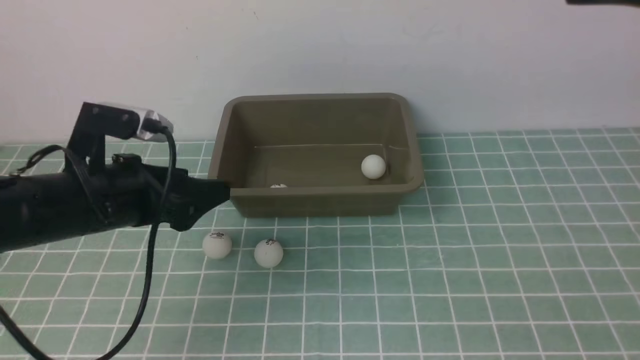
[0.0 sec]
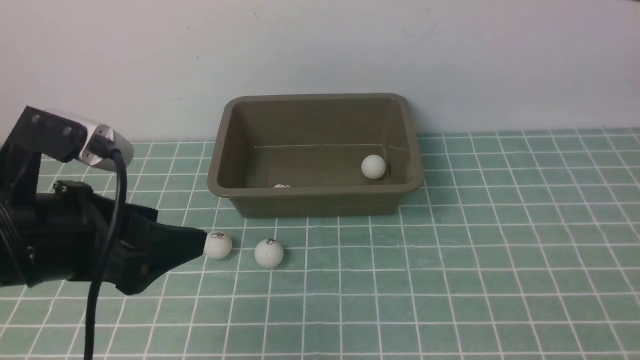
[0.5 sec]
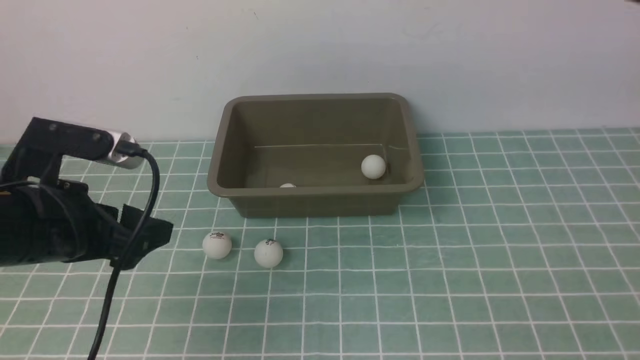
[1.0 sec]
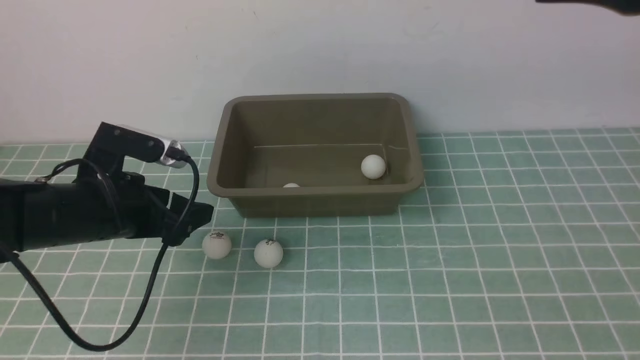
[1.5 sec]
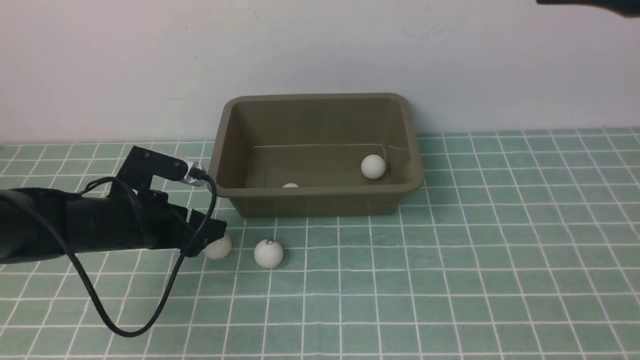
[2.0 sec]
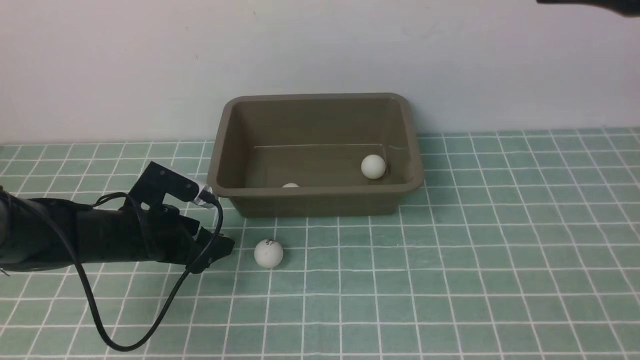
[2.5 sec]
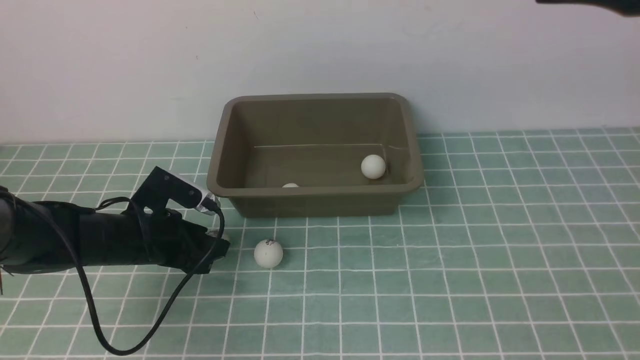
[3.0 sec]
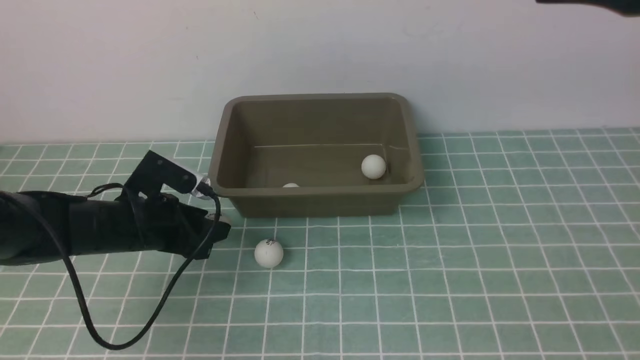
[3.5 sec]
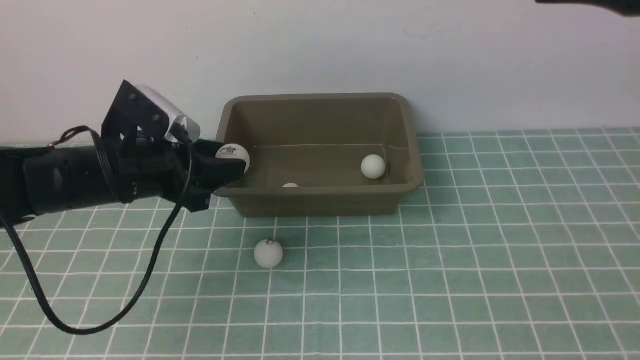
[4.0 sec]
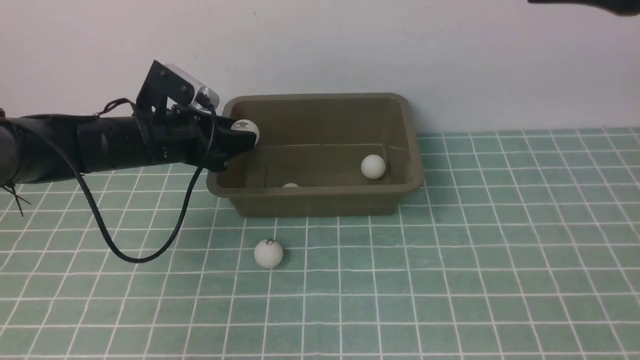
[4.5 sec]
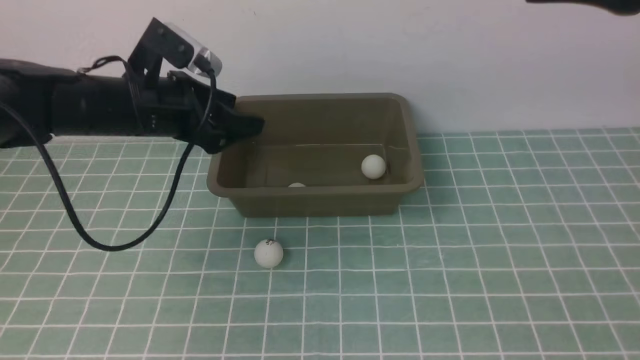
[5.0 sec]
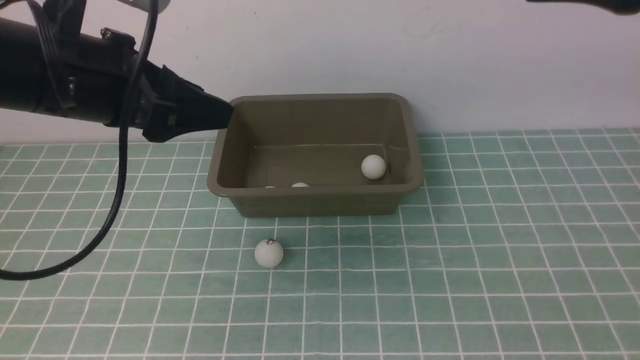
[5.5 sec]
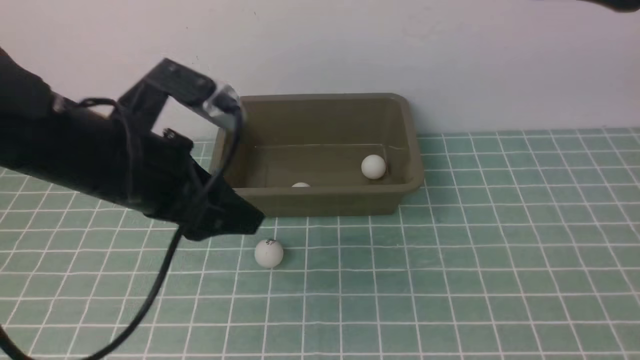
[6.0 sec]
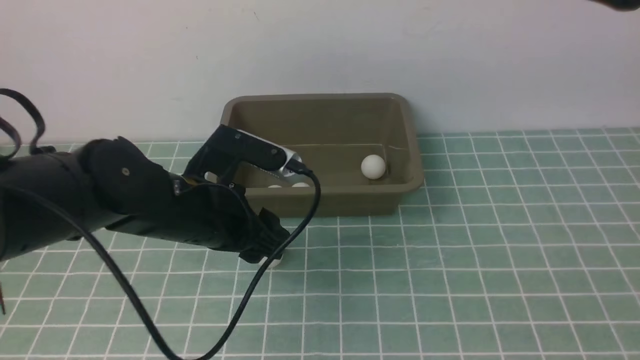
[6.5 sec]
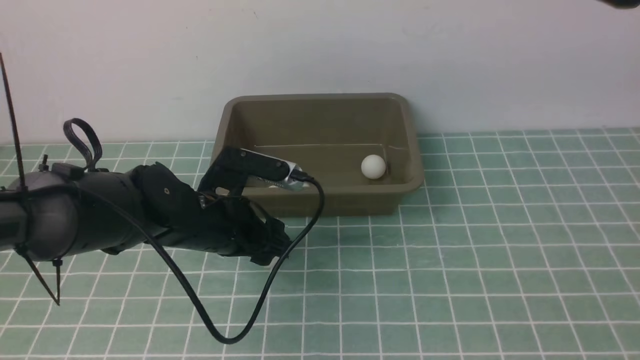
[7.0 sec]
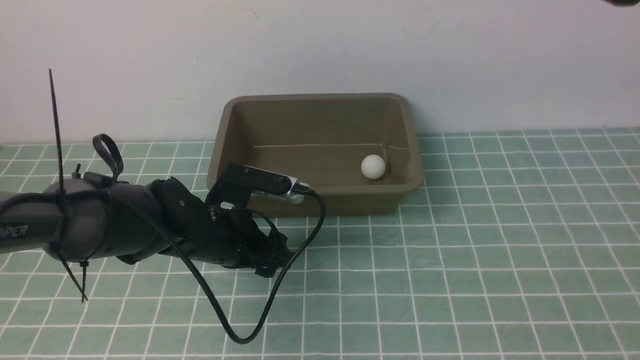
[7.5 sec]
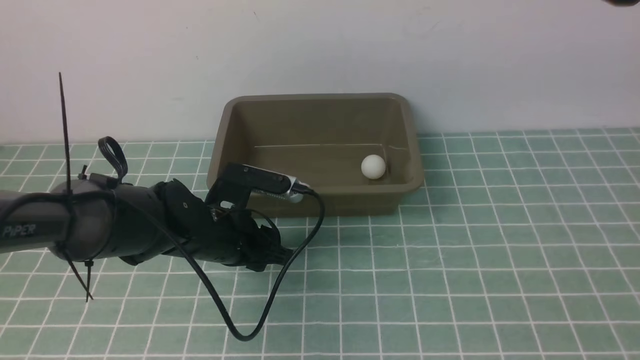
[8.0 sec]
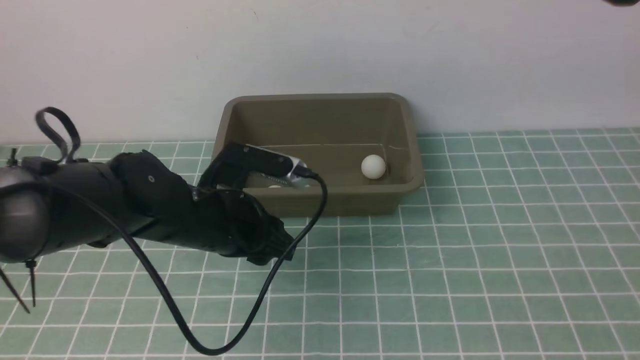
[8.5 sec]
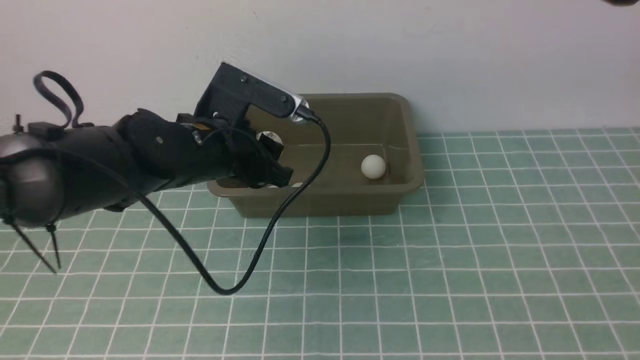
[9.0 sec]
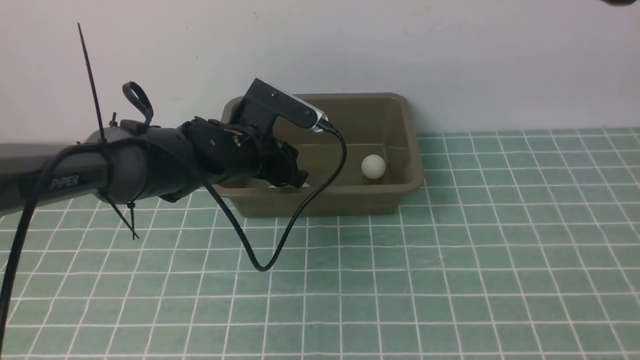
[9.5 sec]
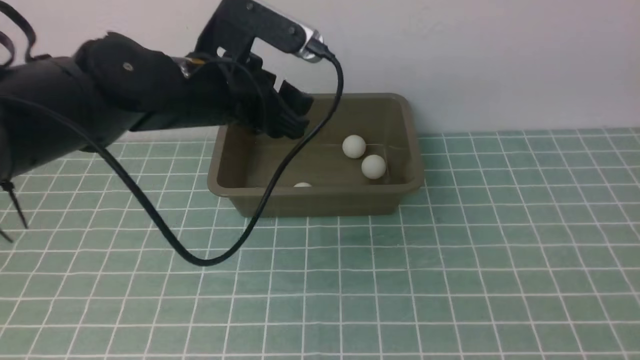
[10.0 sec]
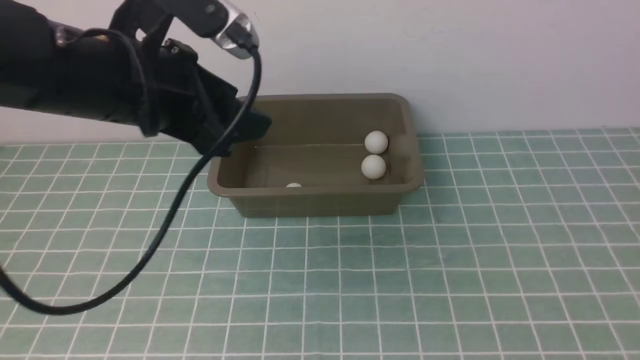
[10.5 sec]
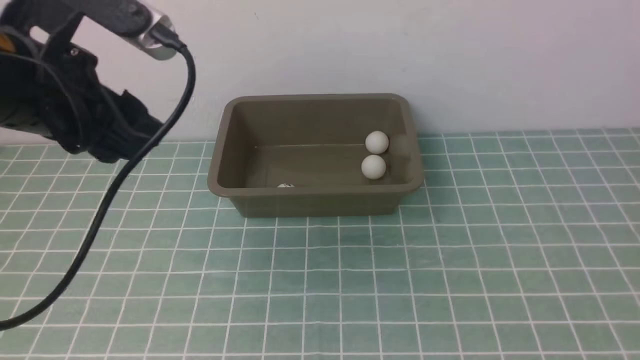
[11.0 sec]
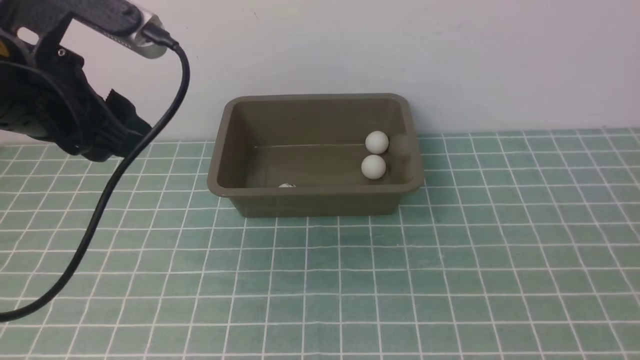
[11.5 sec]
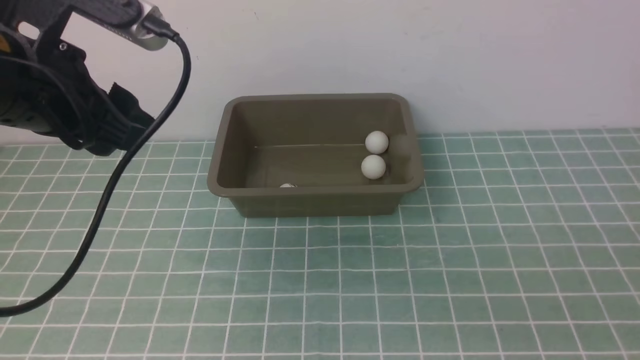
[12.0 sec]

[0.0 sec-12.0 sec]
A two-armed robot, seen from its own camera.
Step, 0.0 sec to 3.5 sec: use the left arm to clamp the table tennis ball closest to it.
Step, 4.0 sec to 4.5 sec: use the left arm to put the table tennis ball into the box.
Step, 5.0 sec to 8.5 sec: use the left arm to clamp the table tennis ball closest to it.
Step, 9.0 sec to 9.5 sec: use the left arm to put the table tennis ball into the box.
0.0 sec to 2.0 sec: The left gripper moves downward and forward, some 20 cm.
2.0 sec to 4.0 sec: The left gripper goes about 10 cm upward, and closes up.
4.0 sec to 6.0 sec: The left gripper moves backward and upward, roughly 10 cm.
6.0 sec to 8.0 sec: The left gripper shifts about 15 cm downward, and opens and closes again.
8.0 sec to 10.0 sec: The left gripper is displaced upward by approximately 20 cm, and opens its fingers.
10.0 sec to 12.0 sec: The left gripper moves to the left, backward and upward, some 15 cm. Meanwhile the right gripper goes about 30 cm downward and backward.

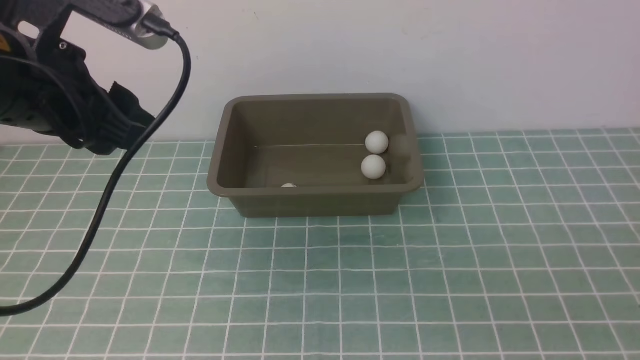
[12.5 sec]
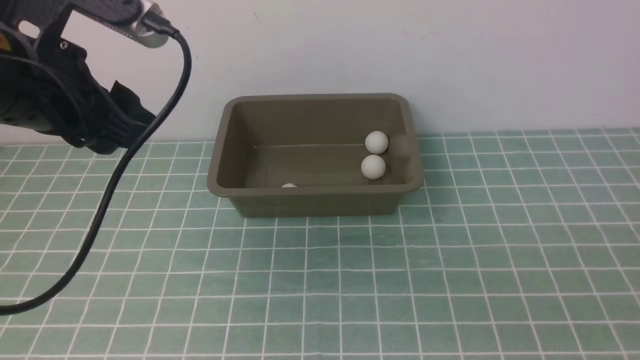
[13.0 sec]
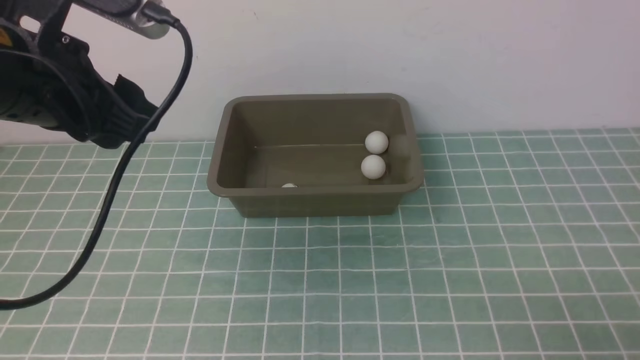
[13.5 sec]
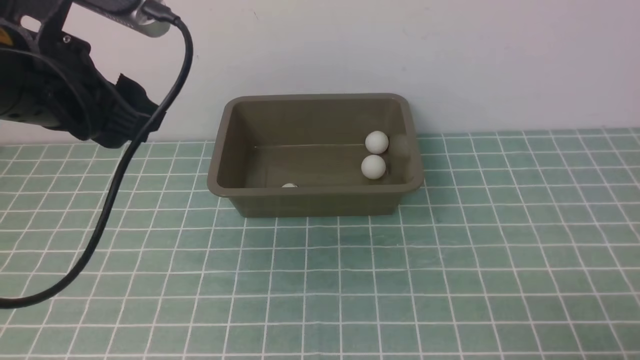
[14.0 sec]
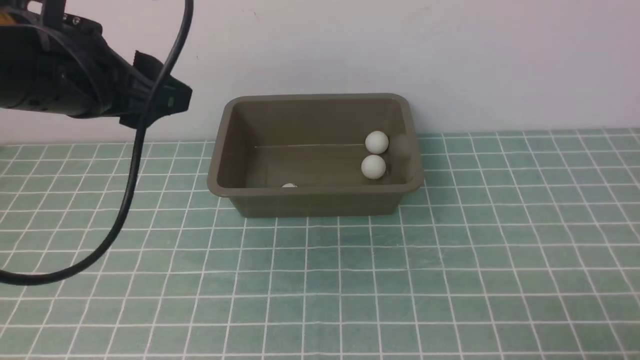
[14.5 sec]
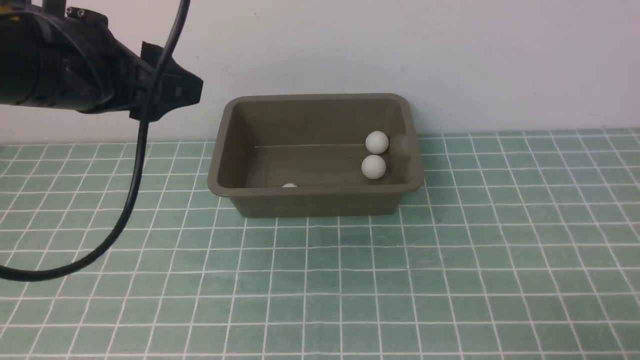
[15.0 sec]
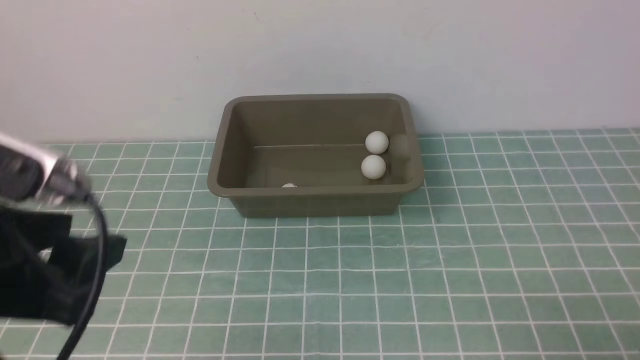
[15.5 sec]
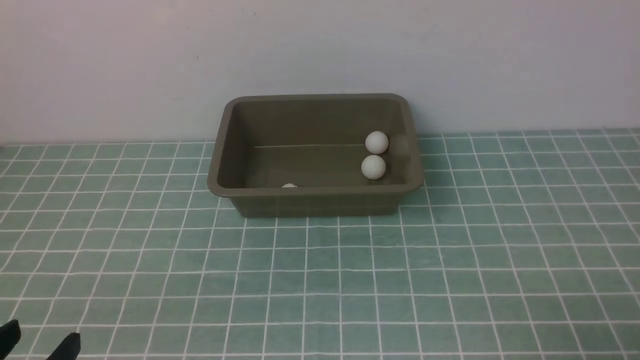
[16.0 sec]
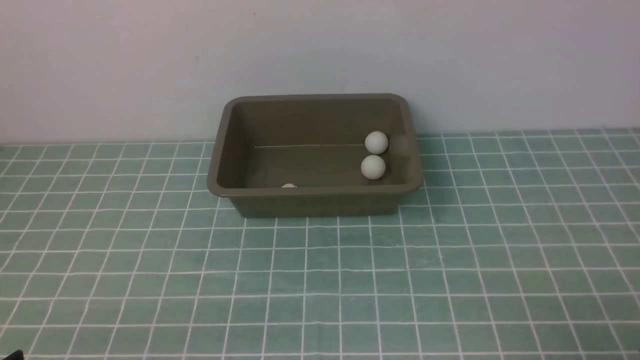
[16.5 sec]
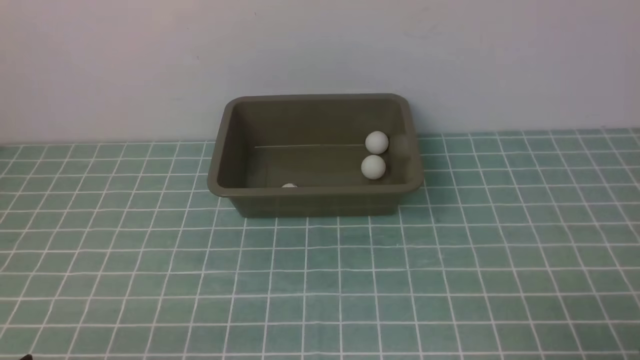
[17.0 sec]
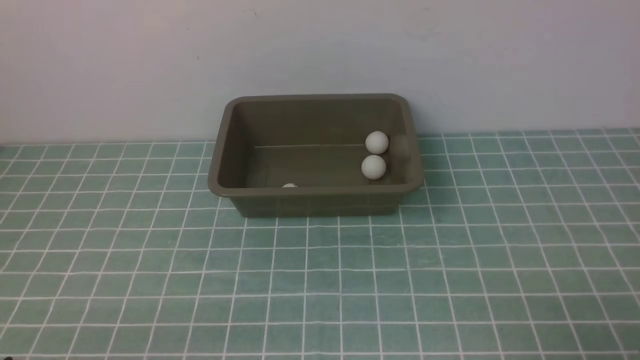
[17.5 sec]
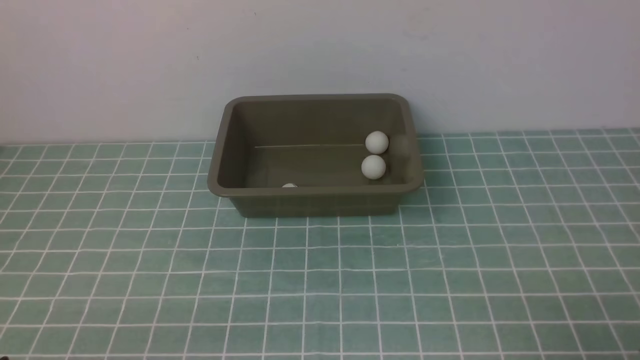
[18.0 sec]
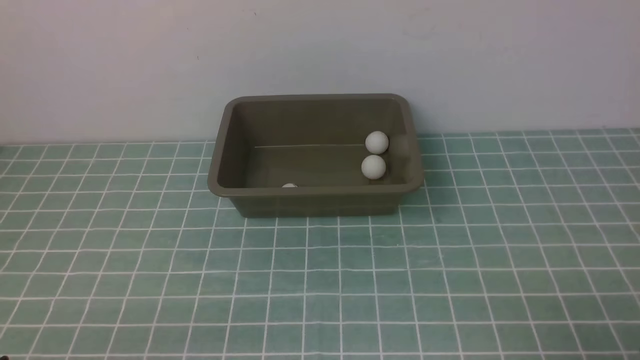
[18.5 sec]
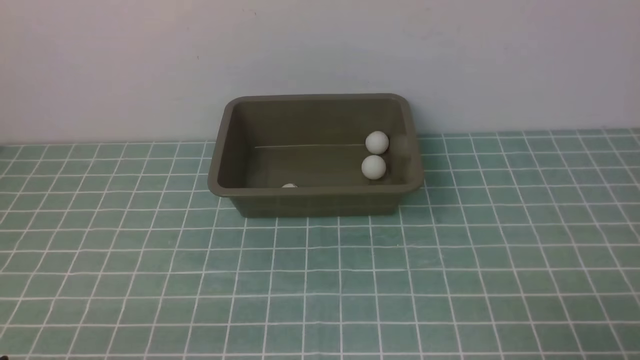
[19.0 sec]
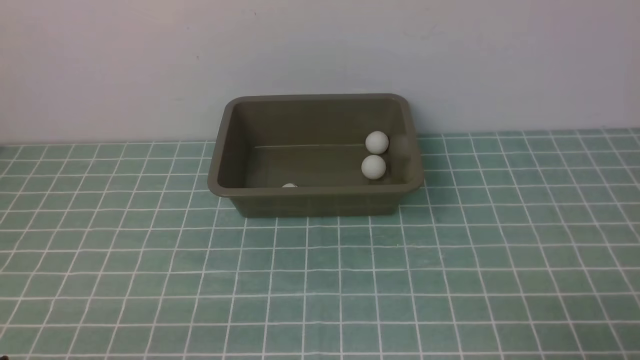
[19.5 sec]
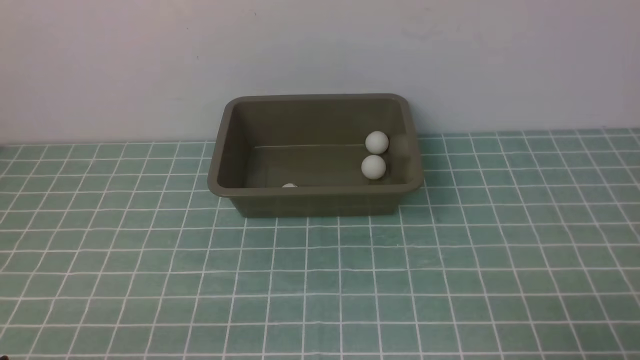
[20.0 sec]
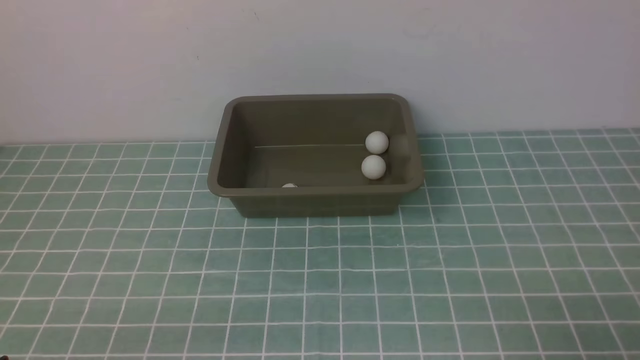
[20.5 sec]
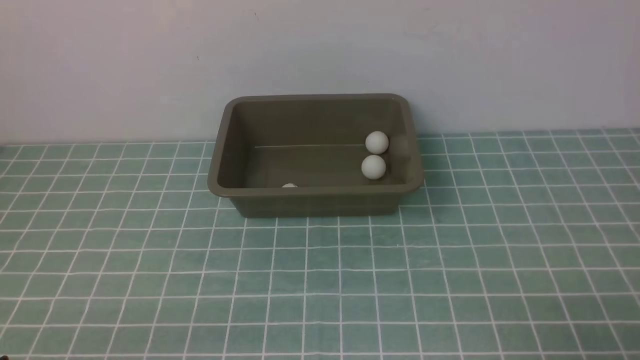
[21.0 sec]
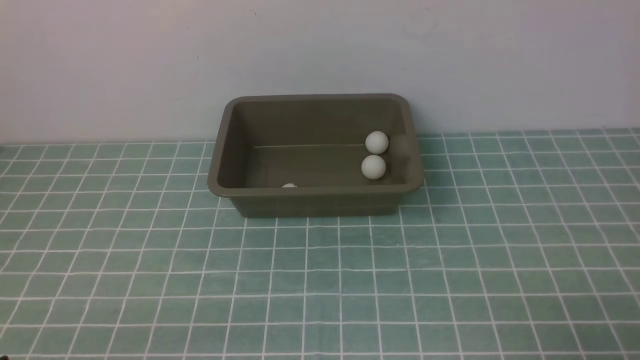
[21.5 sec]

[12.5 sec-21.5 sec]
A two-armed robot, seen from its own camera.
14.5 sec to 17.0 sec: The left gripper moves downward and backward, about 30 cm.
19.5 sec to 21.5 sec: Neither gripper changes place.
